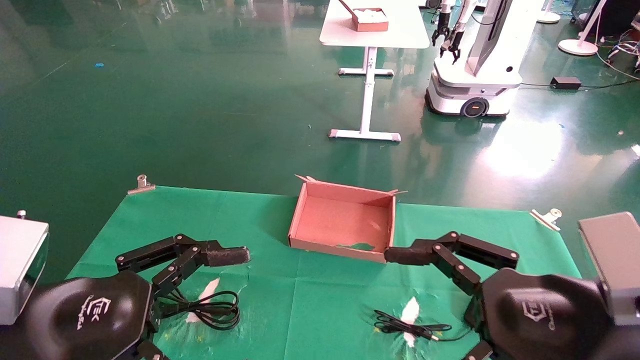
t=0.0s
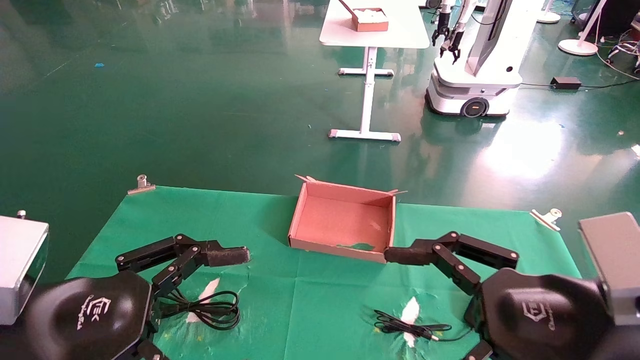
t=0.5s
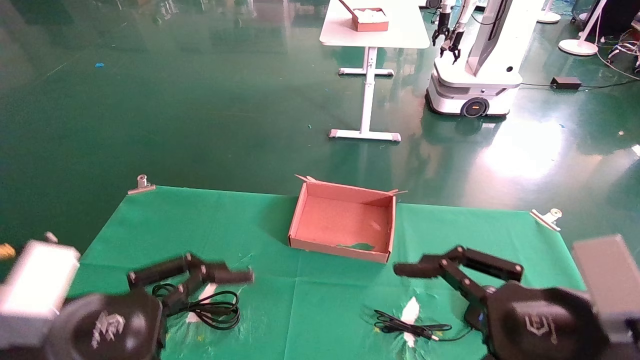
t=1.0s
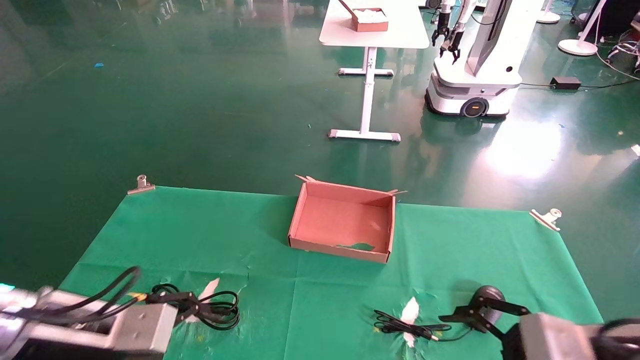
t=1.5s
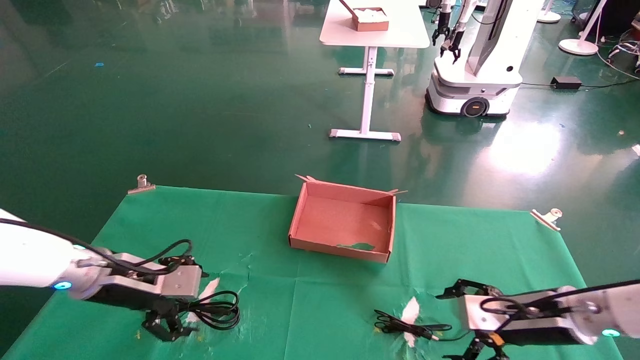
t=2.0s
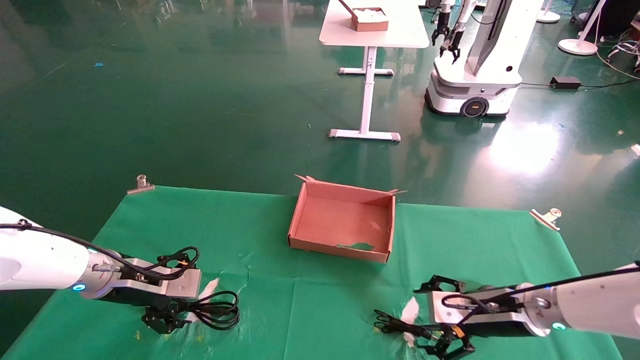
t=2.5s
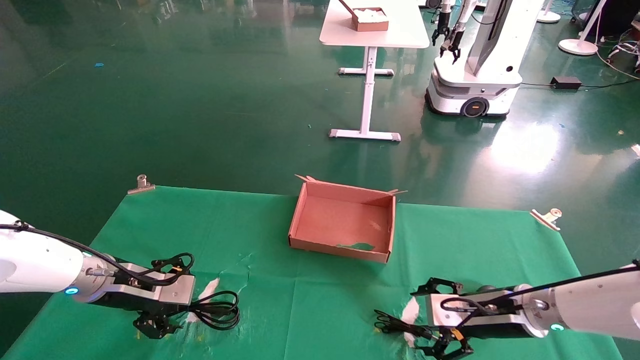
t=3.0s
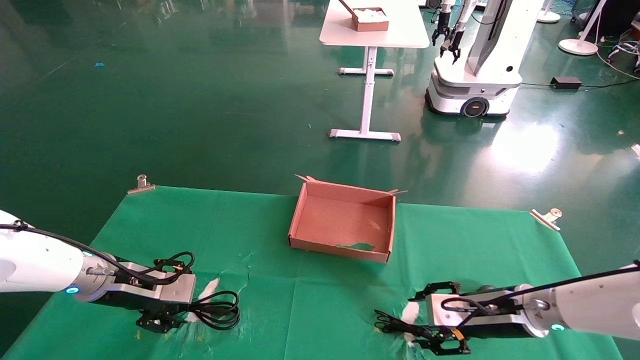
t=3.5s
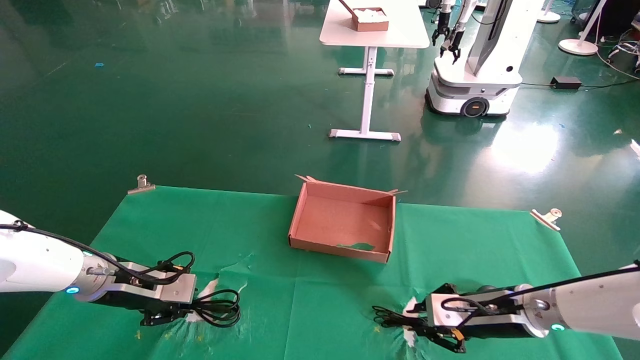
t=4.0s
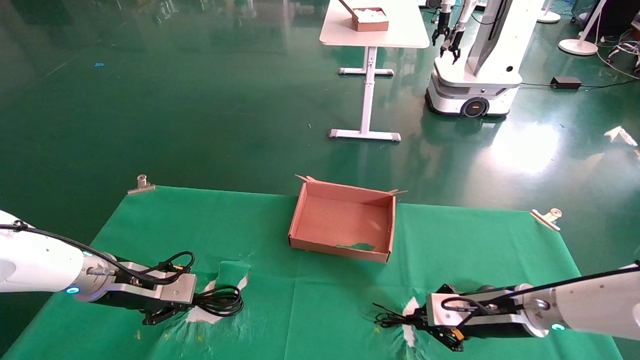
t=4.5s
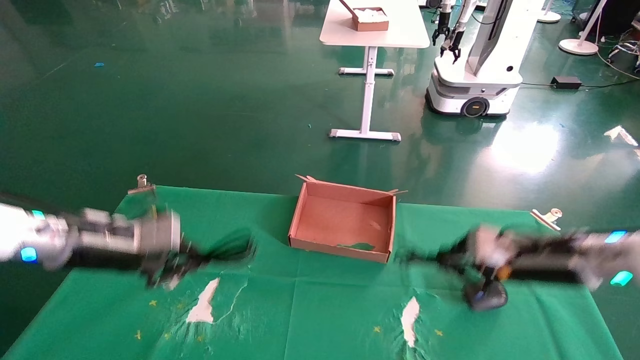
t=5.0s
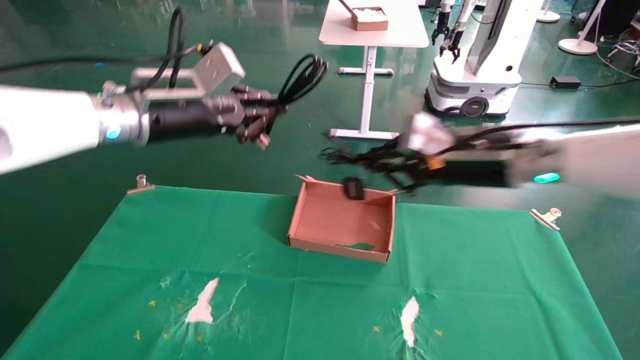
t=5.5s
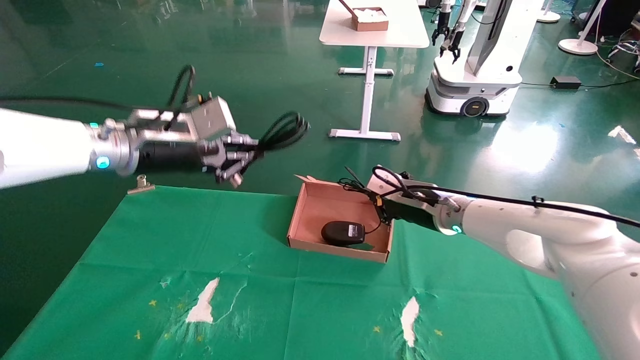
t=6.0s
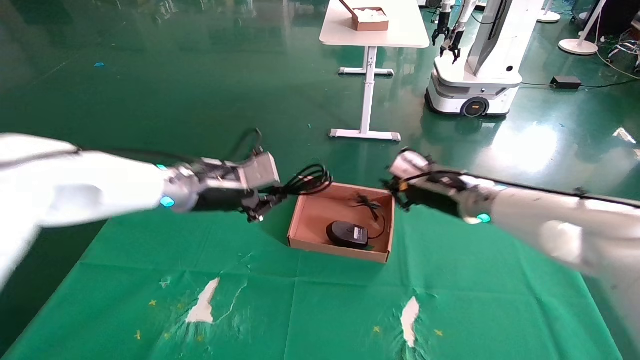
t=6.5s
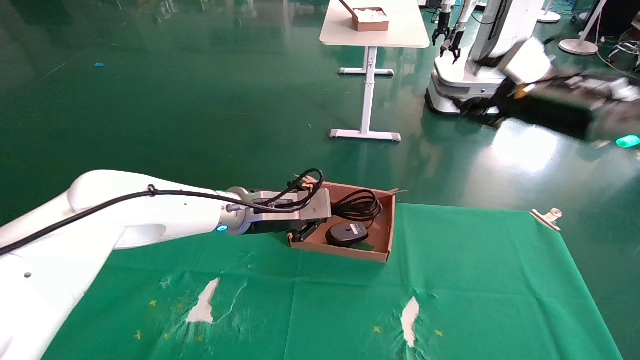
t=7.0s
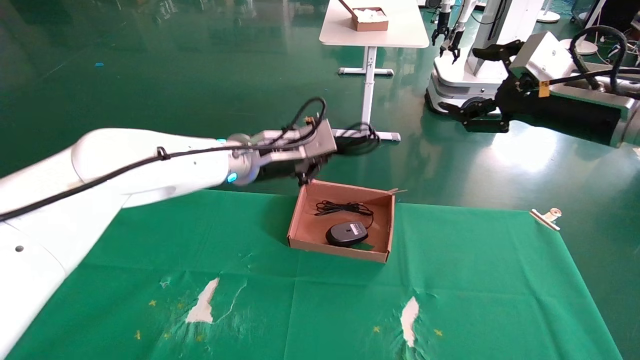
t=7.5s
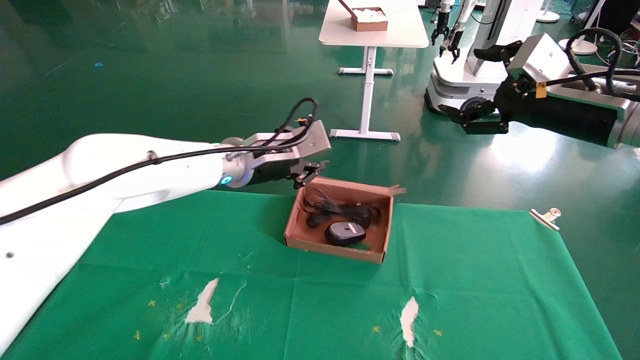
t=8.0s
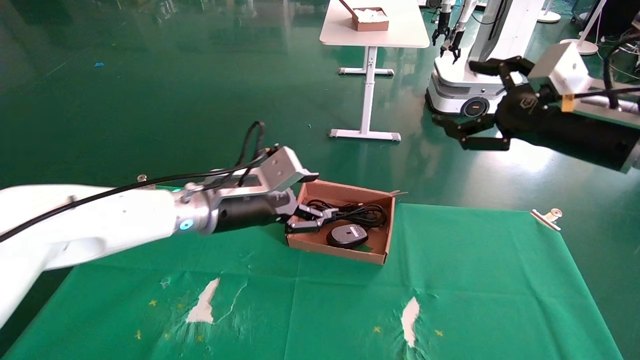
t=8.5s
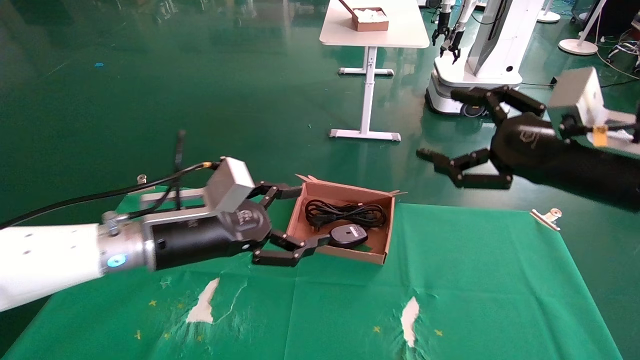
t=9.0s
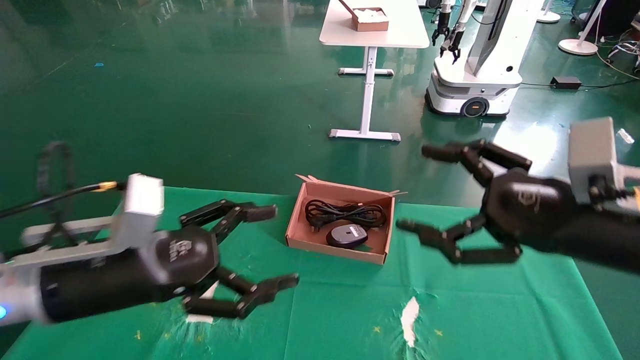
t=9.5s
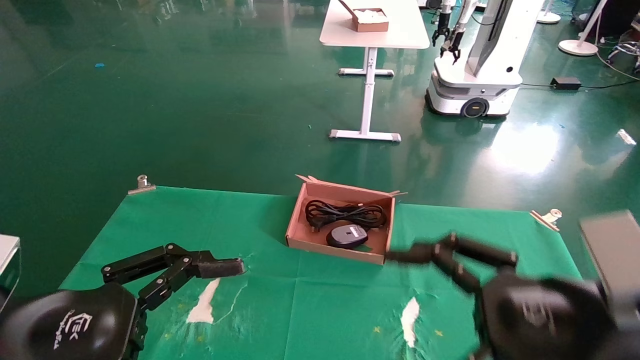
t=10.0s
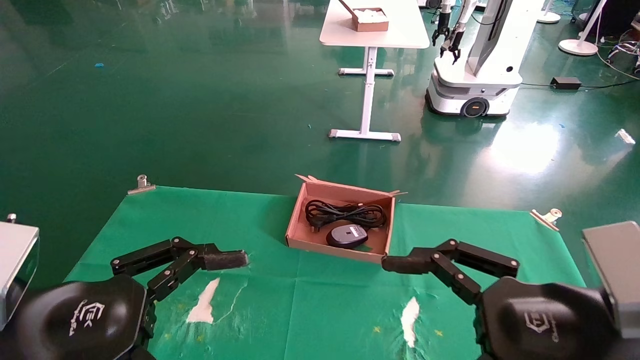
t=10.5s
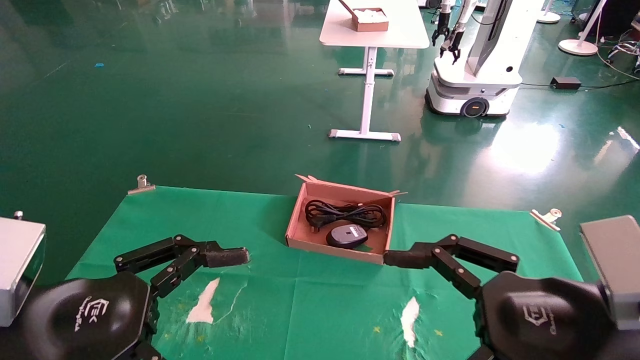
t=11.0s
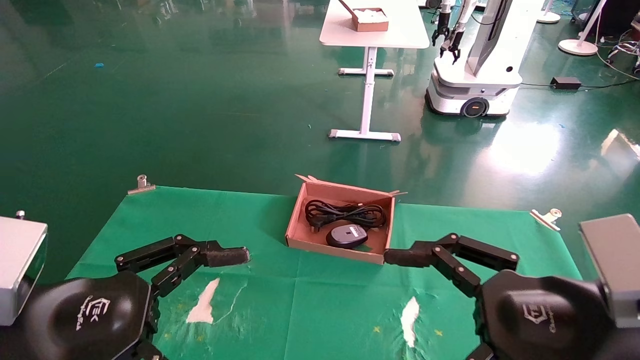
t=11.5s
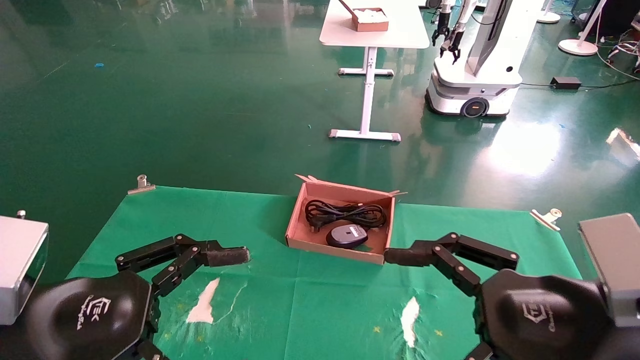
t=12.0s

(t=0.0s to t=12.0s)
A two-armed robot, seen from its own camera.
Step, t=1.5s - t=4.0s: Grab and lift both the mouse and power cord from the accessory packaging area at the same time.
Step, t=4.5s - t=8.0s: Place the mouse and power cord into the box.
t=0.0s - t=2.0s: The left gripper is displaced forward by approximately 20 cm, while the right gripper travels forward and downward by approximately 20 cm.
t=2.0s - t=4.0s: The left gripper closes up, while the right gripper closes up.
t=4.0s - t=6.0s: The left gripper travels upward and to the right by about 20 cm, and closes its fingers. The right gripper shifts roughly 20 cm upward, to the left and forward.
t=6.0s - t=8.0s: The left gripper moves to the right, some 15 cm, while the right gripper heads to the right, upward and backward, covering some 25 cm, and opens its fingers.
t=8.0s - t=10.0s: The left gripper is displaced backward and to the left by some 30 cm, and opens, while the right gripper travels backward, downward and to the left by roughly 25 cm.
t=10.0s - t=12.0s: Both grippers stay about where they are.
